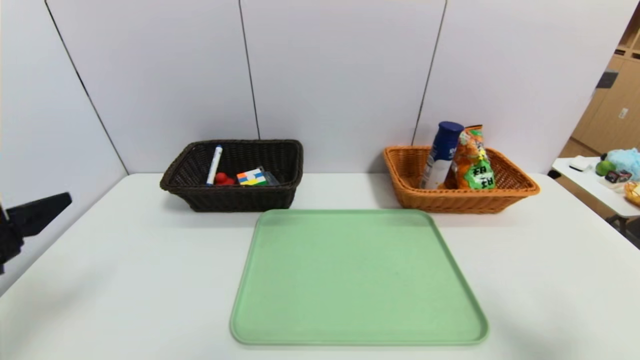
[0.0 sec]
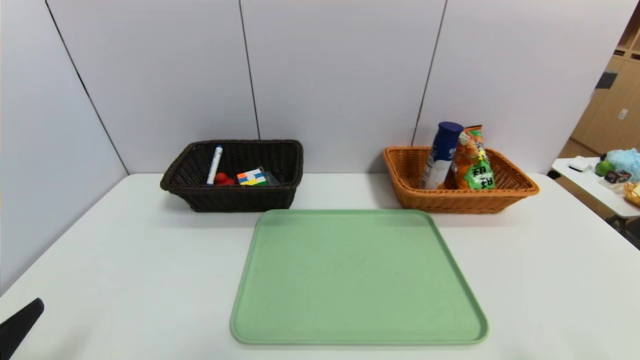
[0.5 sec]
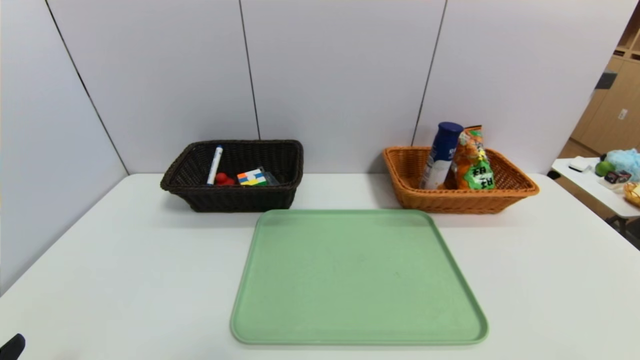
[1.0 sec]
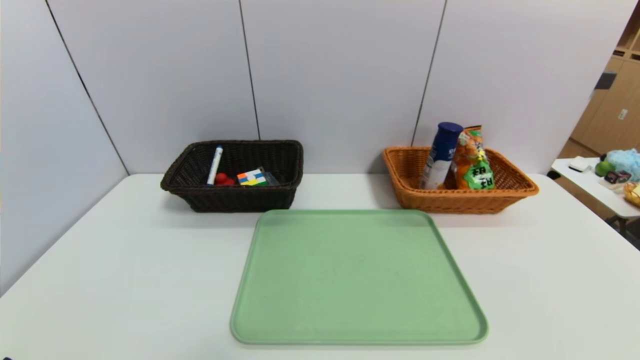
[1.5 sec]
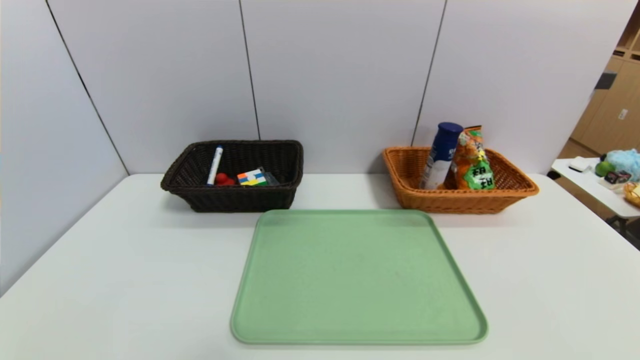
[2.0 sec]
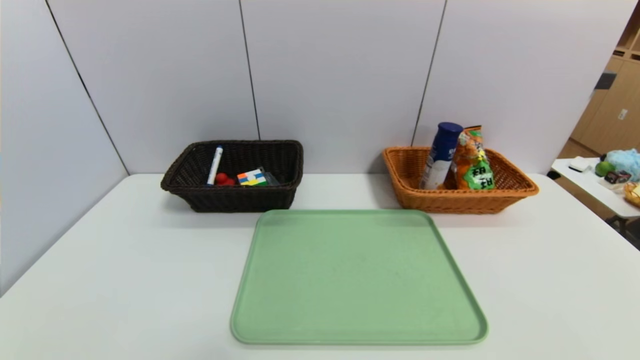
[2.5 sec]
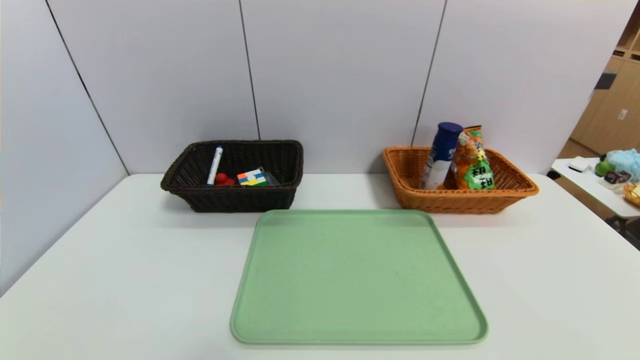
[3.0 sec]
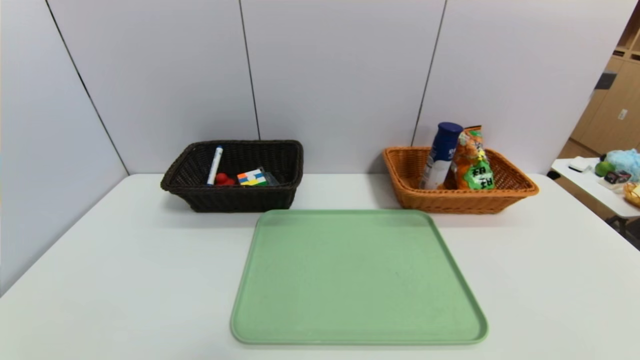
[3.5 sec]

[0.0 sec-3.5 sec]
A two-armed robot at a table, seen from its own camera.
Task of the whole recording: place the food in the right basket with the right gripper, and place the non food items in the left basket with the left gripper.
0.0 sec to 2.0 sec: The two grippers go approximately 15 cm downward and backward.
